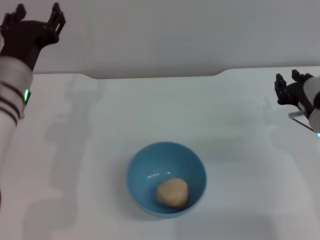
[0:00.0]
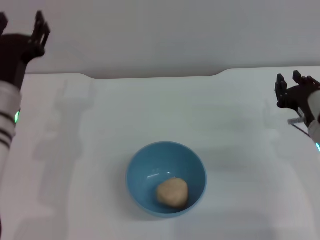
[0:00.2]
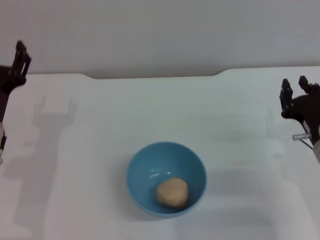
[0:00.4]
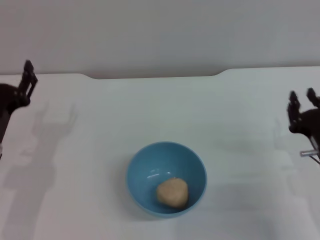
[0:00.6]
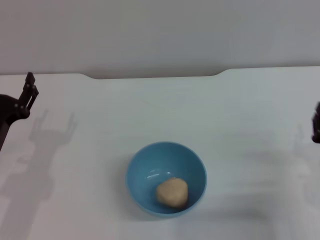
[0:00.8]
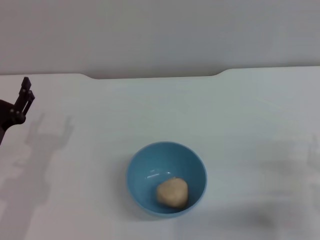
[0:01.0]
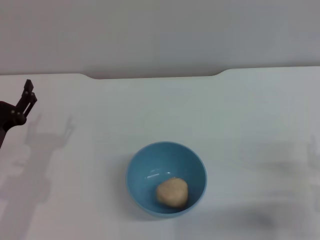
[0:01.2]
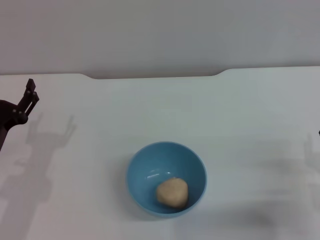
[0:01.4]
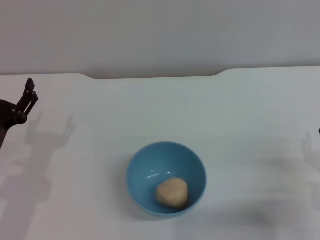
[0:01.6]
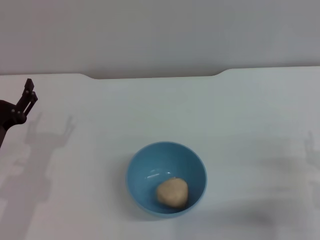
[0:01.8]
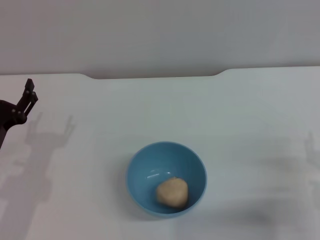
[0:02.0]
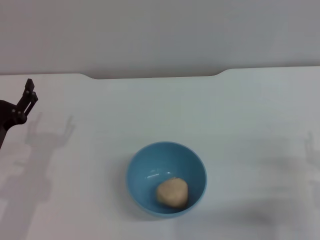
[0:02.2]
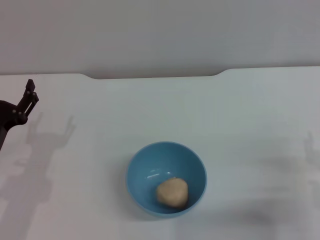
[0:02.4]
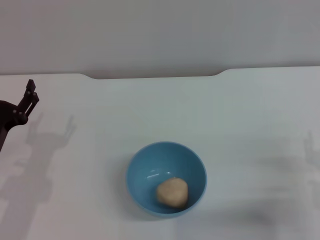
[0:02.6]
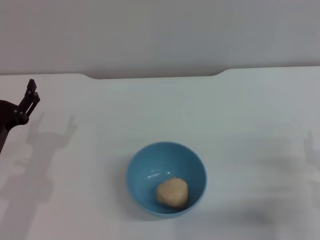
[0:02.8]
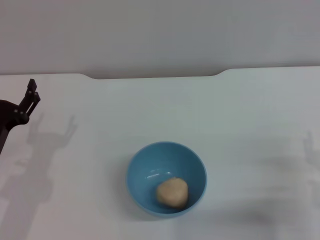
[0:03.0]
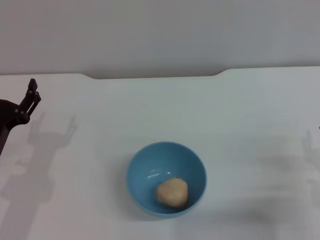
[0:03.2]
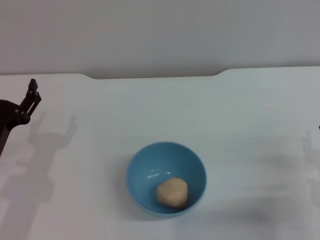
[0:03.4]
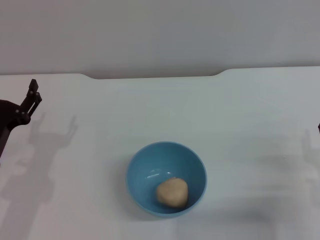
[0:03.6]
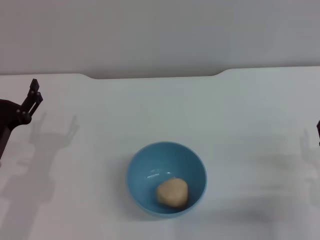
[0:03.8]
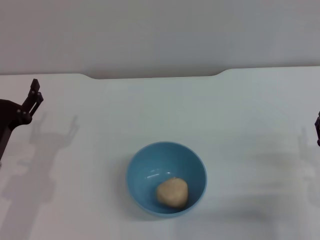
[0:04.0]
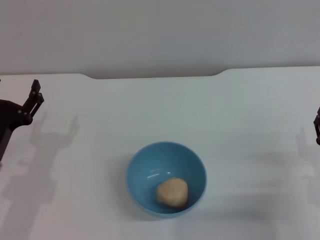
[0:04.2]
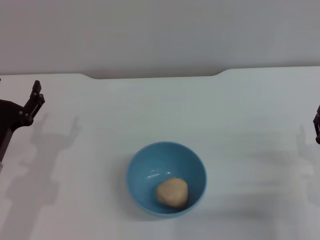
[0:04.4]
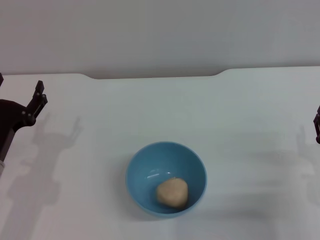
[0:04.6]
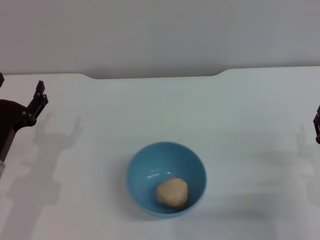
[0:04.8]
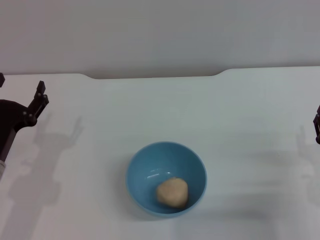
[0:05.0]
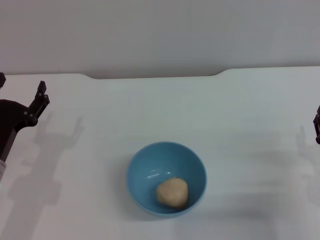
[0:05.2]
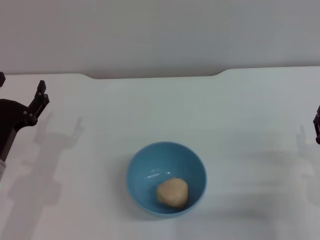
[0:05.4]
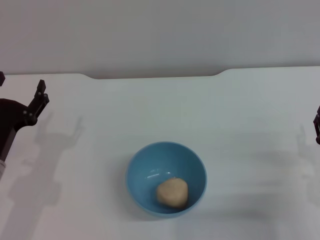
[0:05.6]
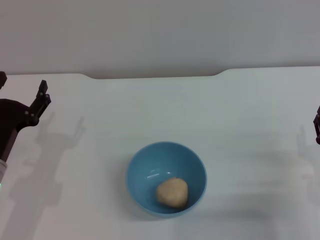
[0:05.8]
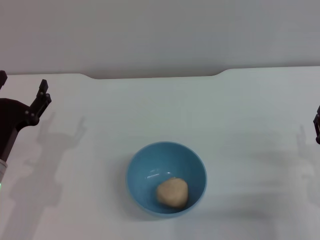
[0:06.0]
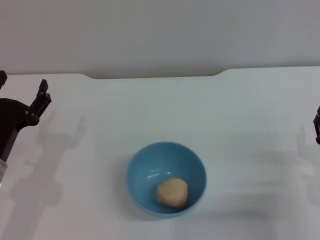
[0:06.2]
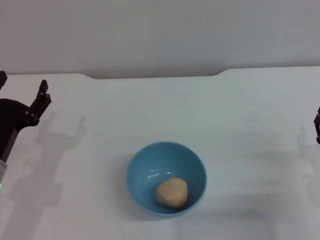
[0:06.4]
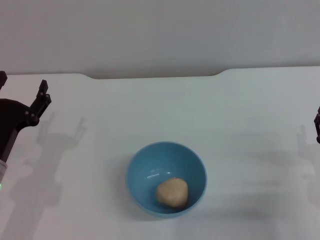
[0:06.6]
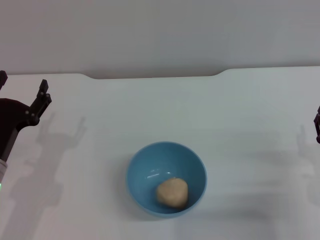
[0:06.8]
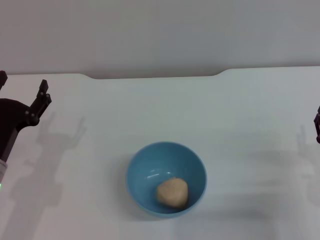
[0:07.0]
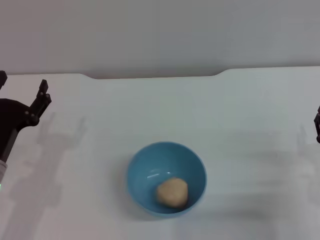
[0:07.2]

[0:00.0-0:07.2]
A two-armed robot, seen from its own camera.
Task of the whole recording: put the egg yolk pastry into the blue bowl and pour it out repeatedly.
0:00.0 to 0:01.4: The left gripper travels downward, backward and to the left by some 15 cm; the right gripper heads backward and downward, covering roughly 15 cm.
0:01.4 to 0:02.8: Neither gripper changes place.
0:02.8 to 0:04.4: There are only small adjustments of the grippers.
0:04.4 to 0:07.2: The two grippers keep their place.
